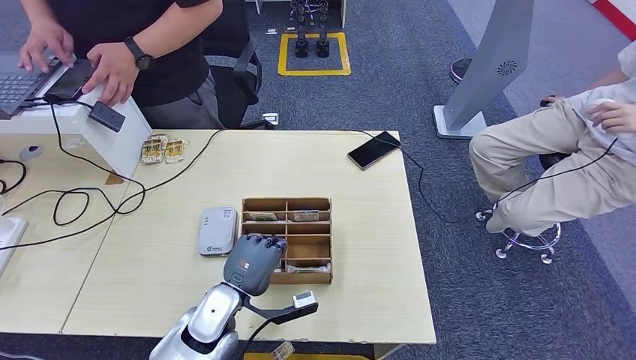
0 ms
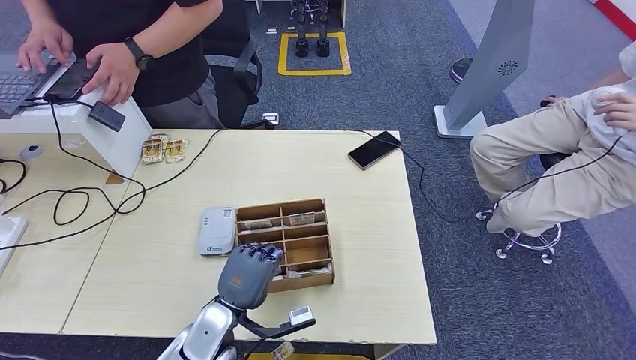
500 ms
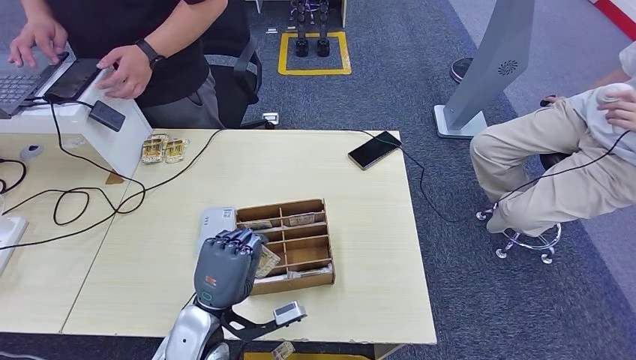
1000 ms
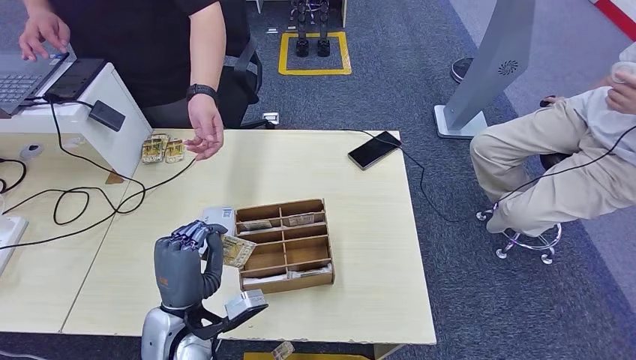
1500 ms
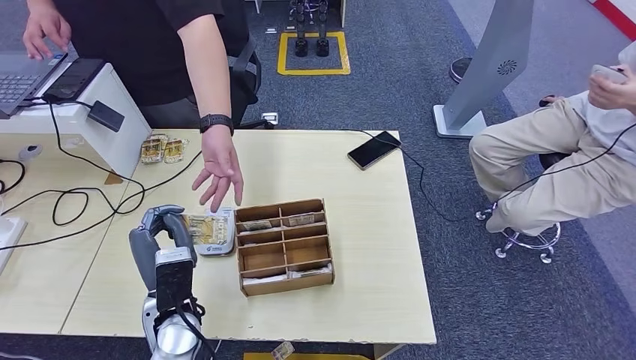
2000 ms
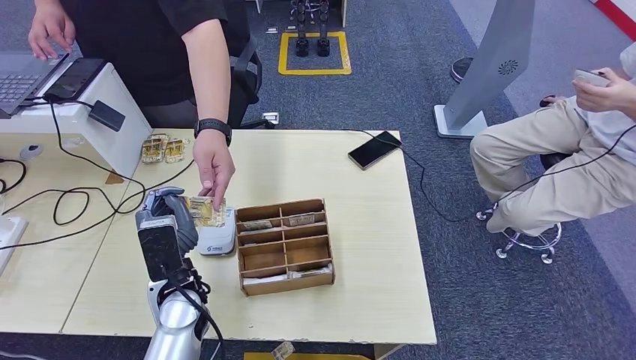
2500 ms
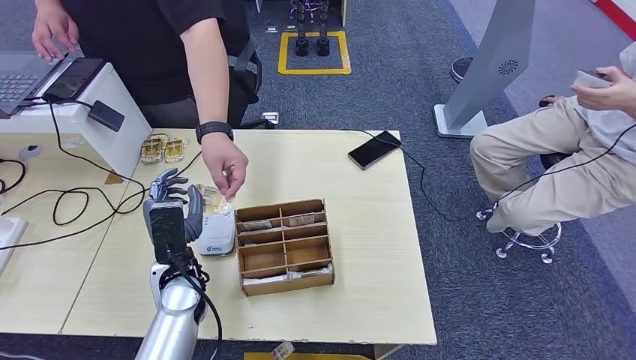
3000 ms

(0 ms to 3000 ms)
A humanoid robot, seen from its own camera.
Step, 2000 ms - 3000 ms: Hand the room key to the person.
0 ms - 1500 ms: The left hand goes some 5 cm upward.
1500 ms - 3000 ms: The left hand goes roughly 10 cm forward.

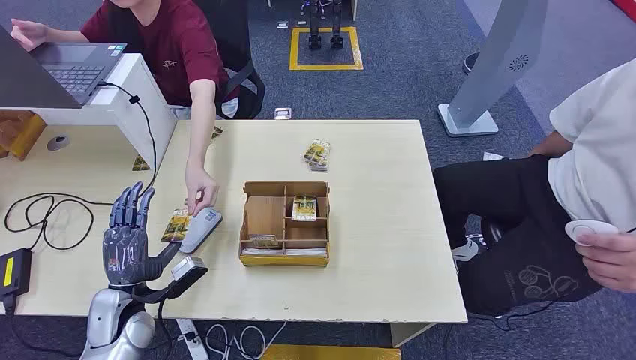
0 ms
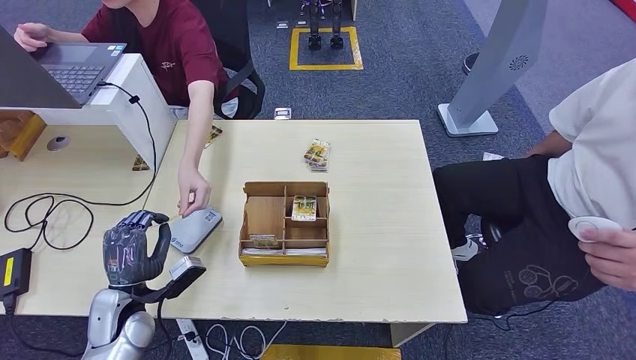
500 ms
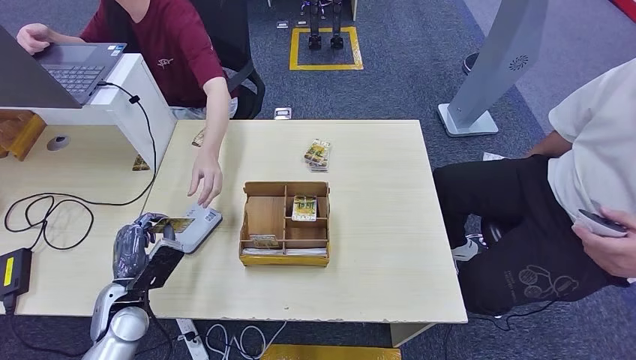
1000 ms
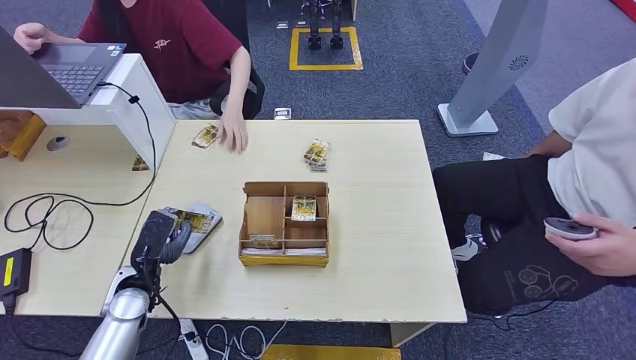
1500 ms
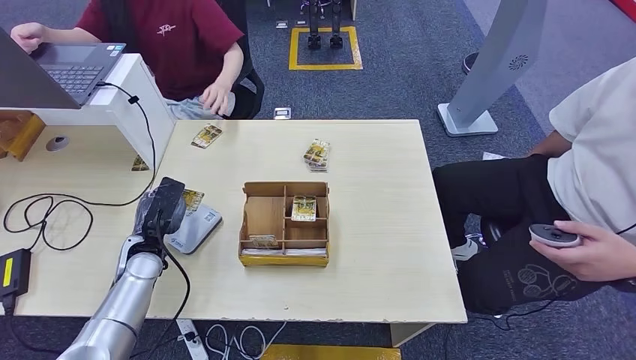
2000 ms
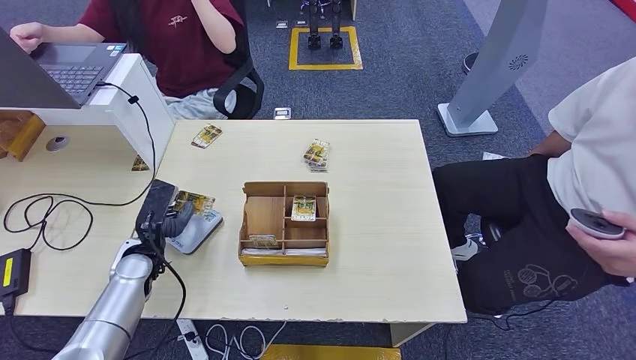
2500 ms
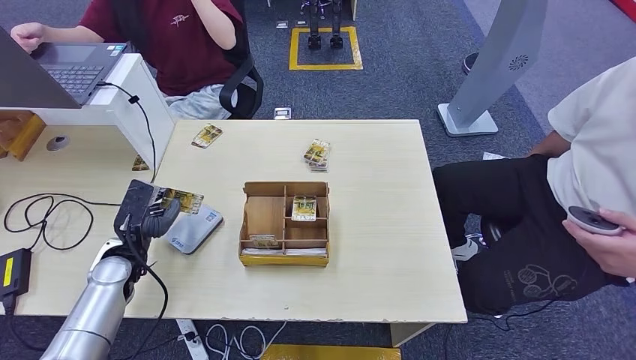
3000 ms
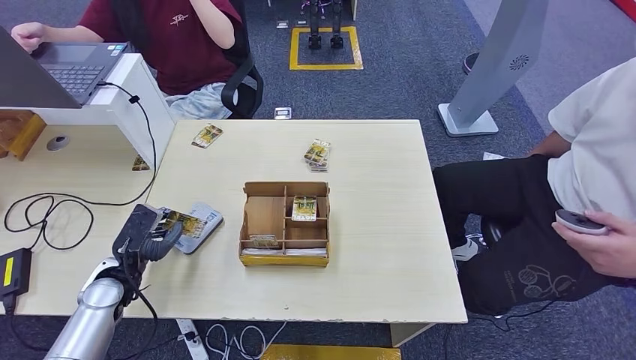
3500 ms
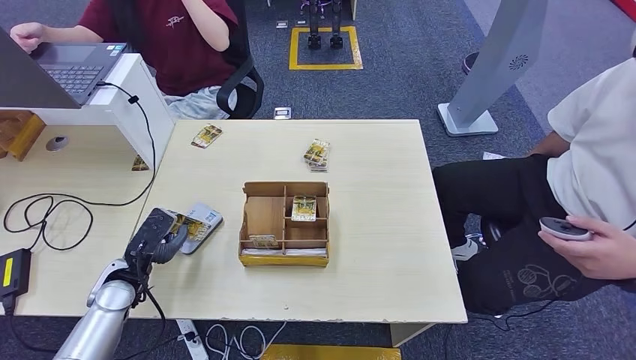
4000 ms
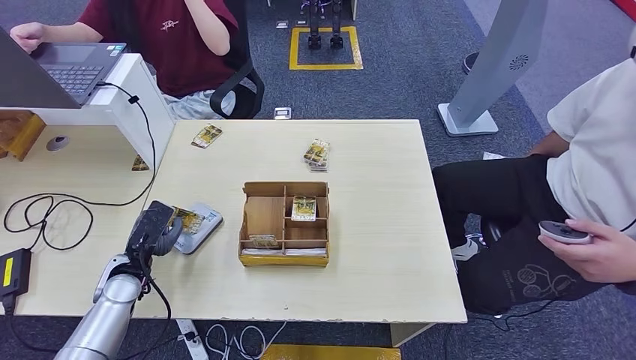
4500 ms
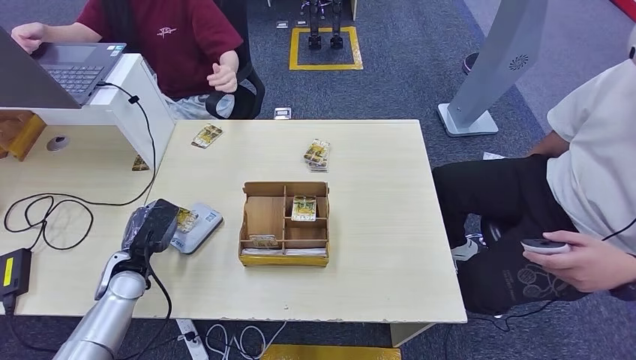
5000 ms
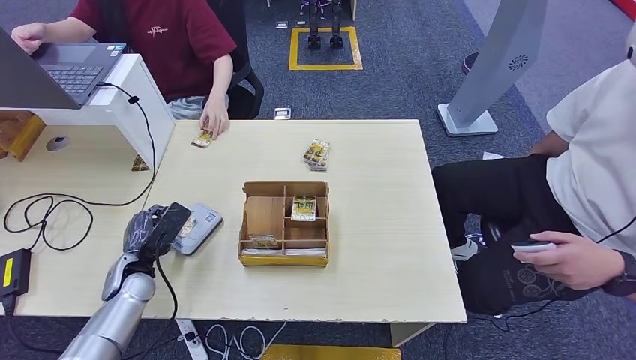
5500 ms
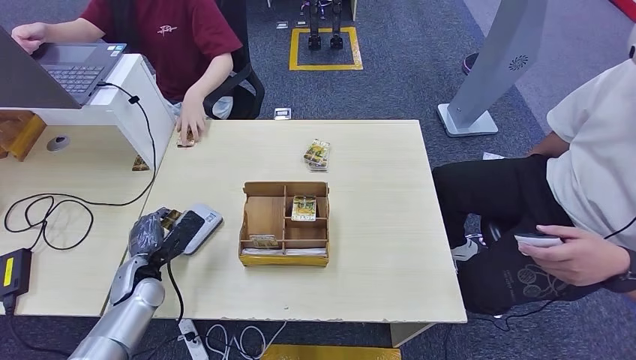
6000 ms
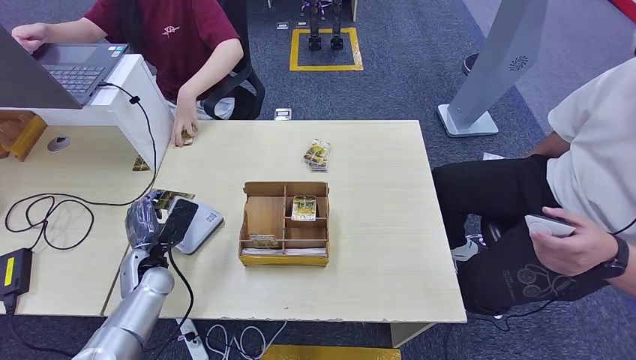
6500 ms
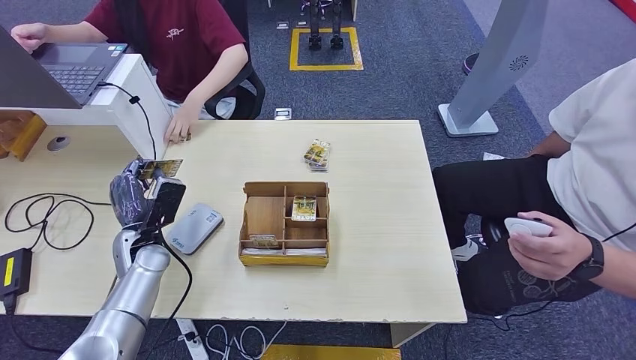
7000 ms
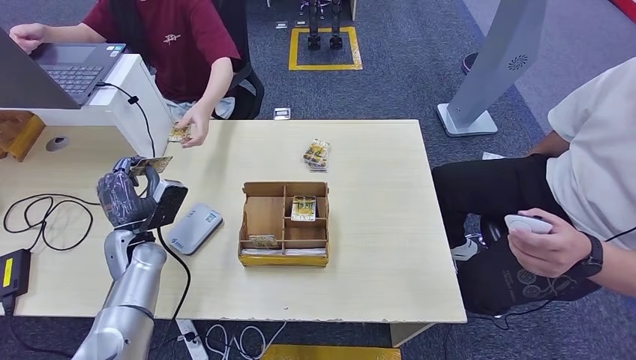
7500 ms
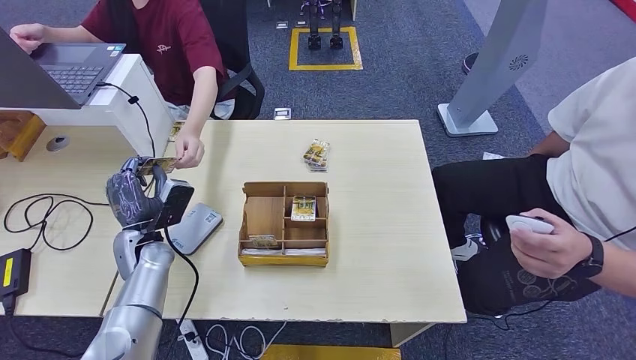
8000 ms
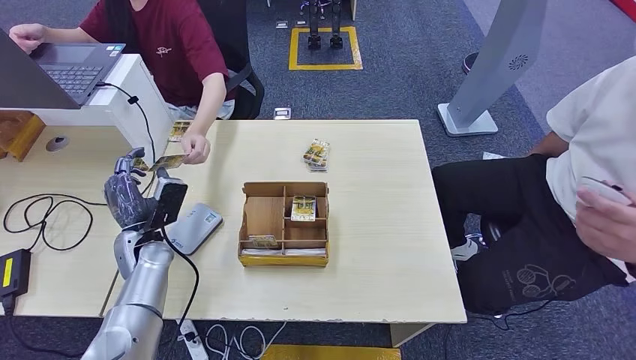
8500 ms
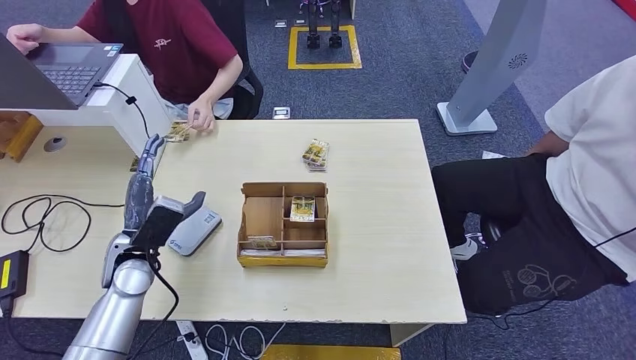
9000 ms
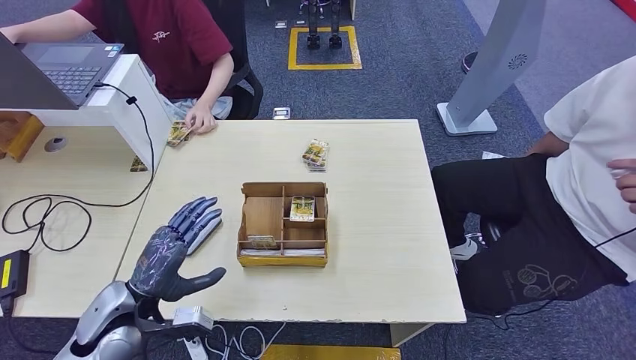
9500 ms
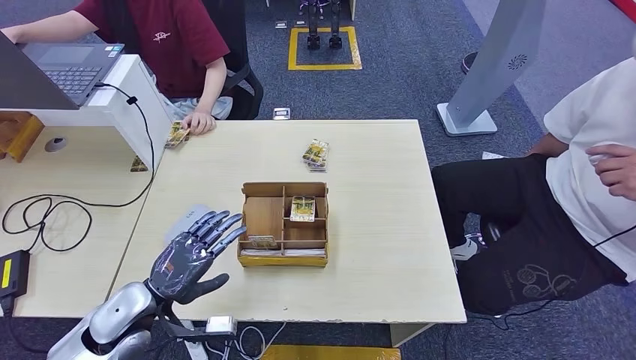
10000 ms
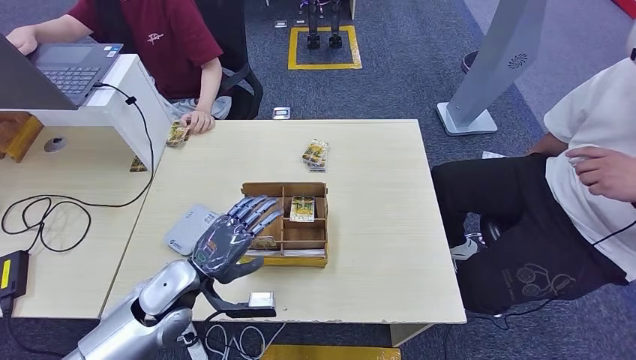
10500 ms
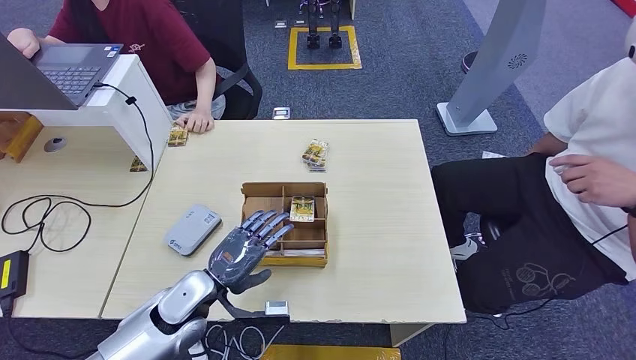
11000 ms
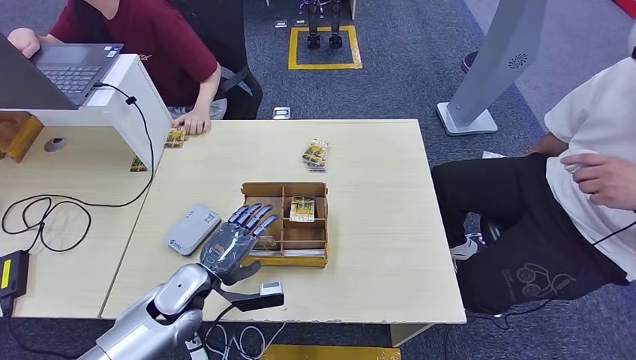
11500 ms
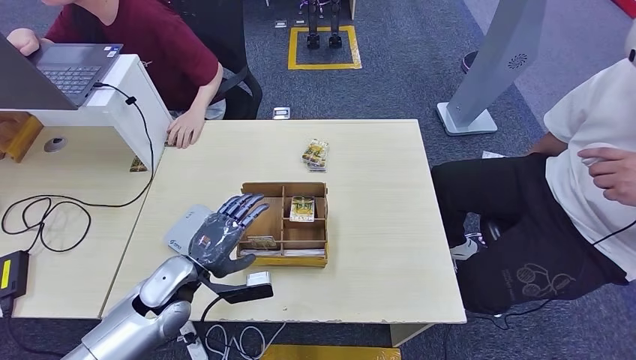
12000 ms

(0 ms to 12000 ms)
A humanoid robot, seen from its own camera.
Step, 0 ms - 500 ms: Take the ID card from the person's hand.
Step, 1000 ms - 5500 ms: Place the ID card on the card reader.
Step, 6000 ms - 8000 ms: Hand the ID card to the person.
2000 ms - 4000 ms: The left hand moves backward, some 5 cm.
6000 ms - 8000 ms: The left hand goes roughly 5 cm upward.
8000 ms - 10000 ms: The left hand shifts roughly 15 cm backward.
10000 ms - 12000 ms: The left hand travels forward by approximately 5 cm.

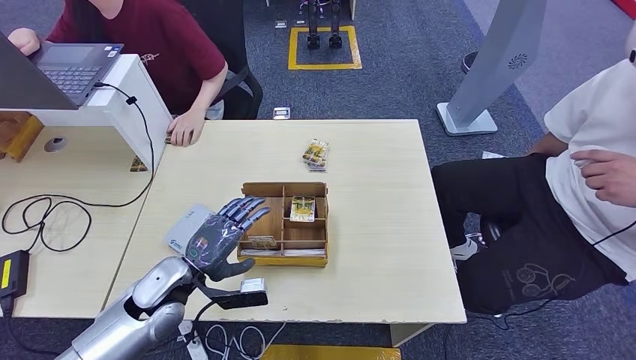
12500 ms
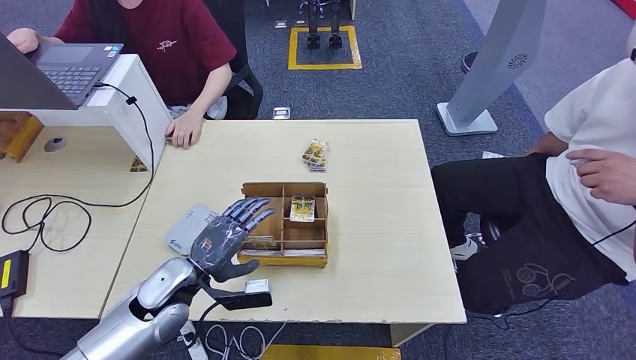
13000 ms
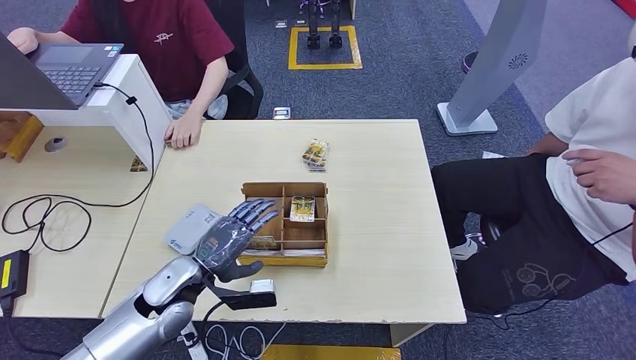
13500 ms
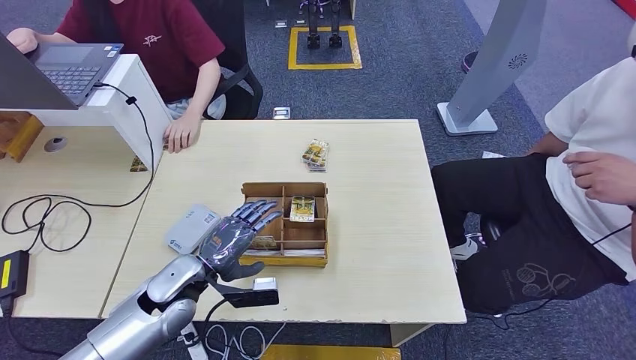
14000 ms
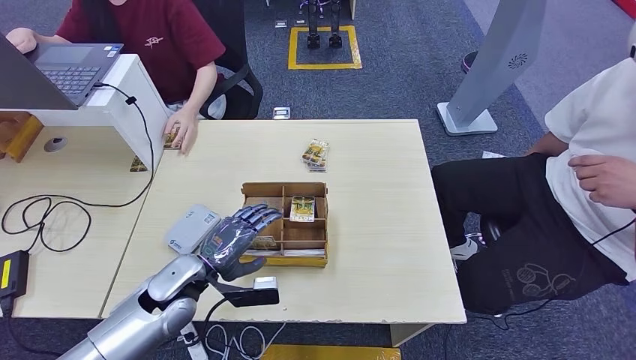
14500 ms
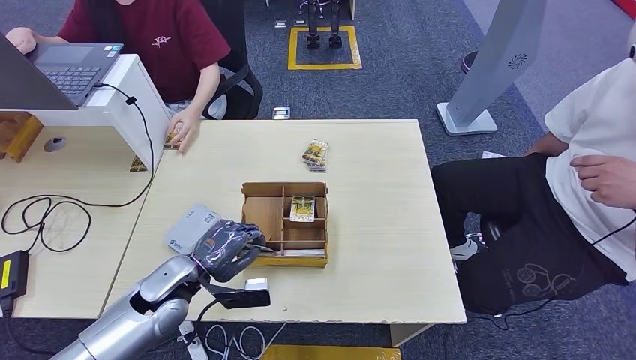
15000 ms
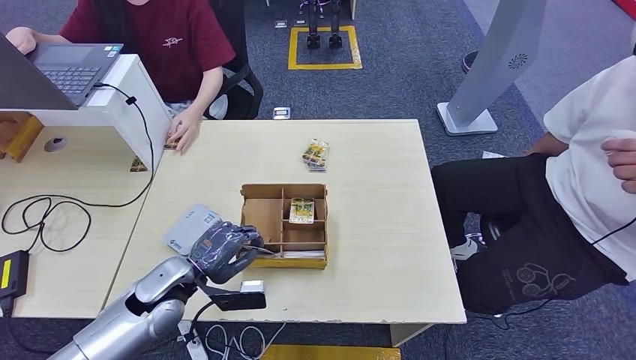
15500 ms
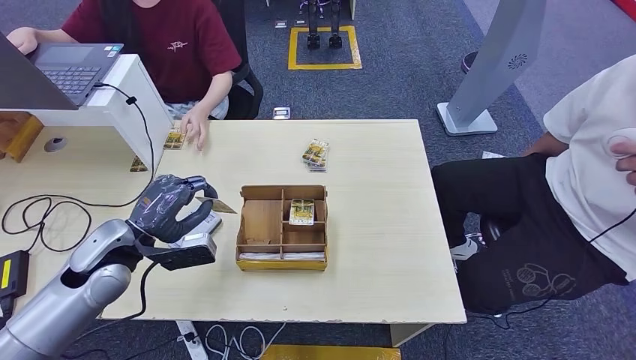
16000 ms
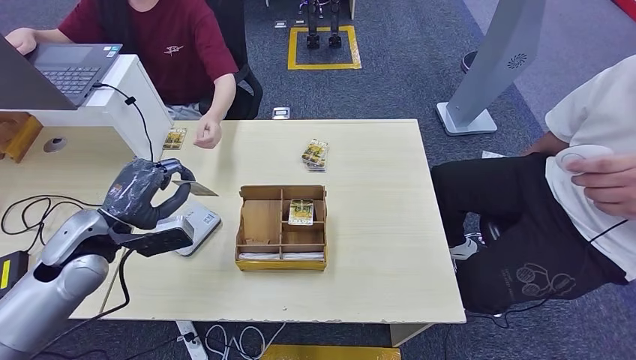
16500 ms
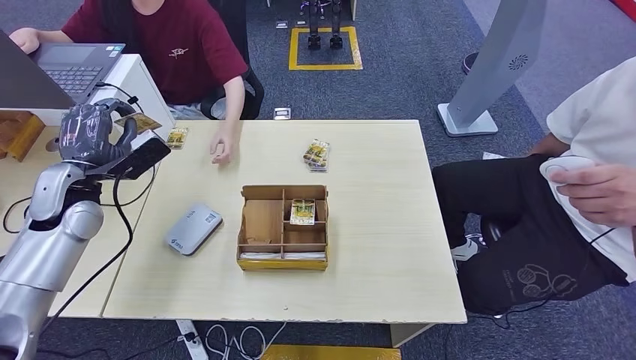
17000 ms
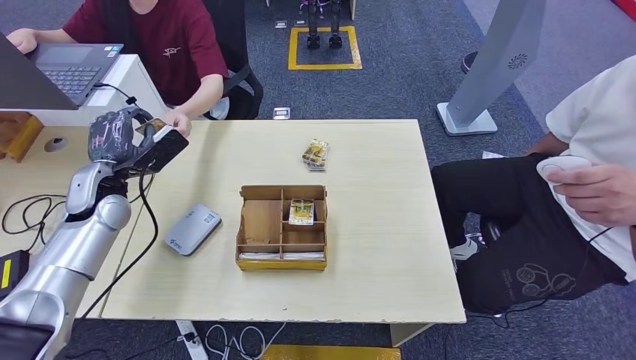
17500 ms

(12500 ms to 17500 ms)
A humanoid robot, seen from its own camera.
Step, 12500 ms - 16000 ms: Pick up the room key from the key card box.
Step, 16500 ms - 17500 ms: Hand the room key to the person.
12500 ms - 15000 ms: There are only small adjustments of the hands.
15000 ms - 17500 ms: The left hand heads forward, to the left and upward, covering roughly 20 cm.
